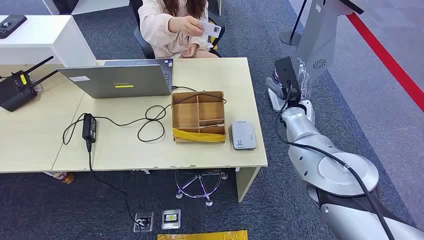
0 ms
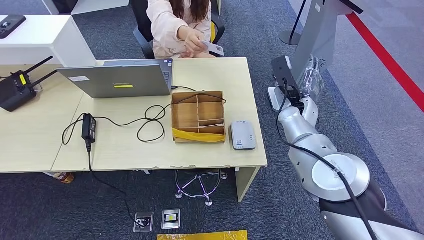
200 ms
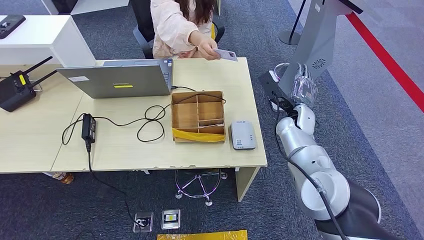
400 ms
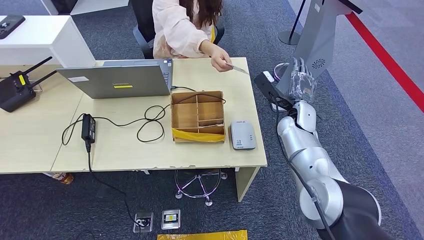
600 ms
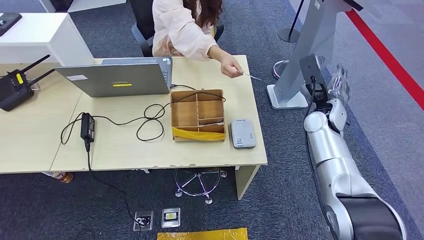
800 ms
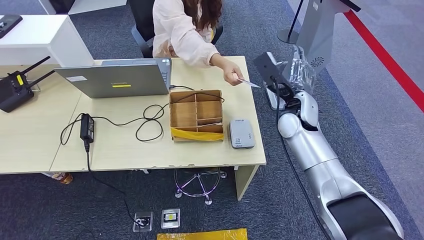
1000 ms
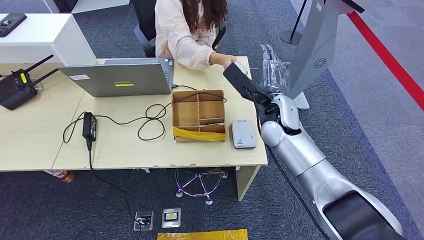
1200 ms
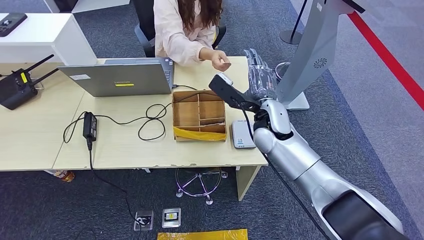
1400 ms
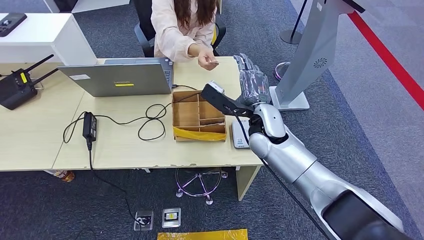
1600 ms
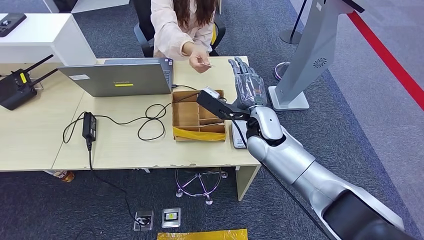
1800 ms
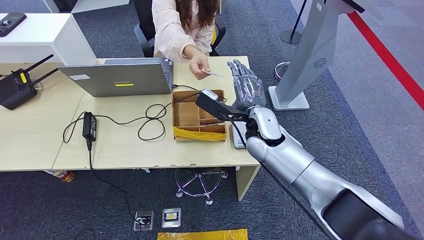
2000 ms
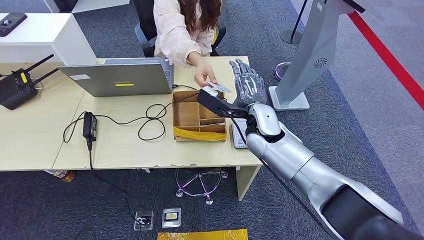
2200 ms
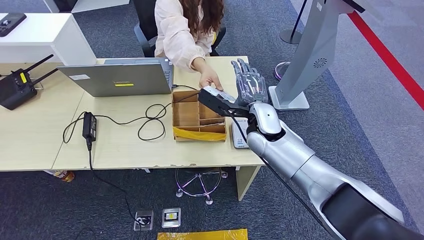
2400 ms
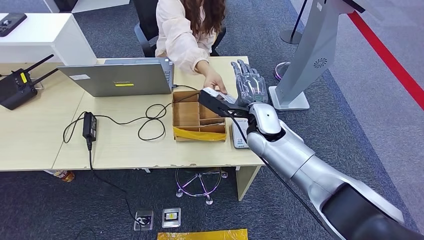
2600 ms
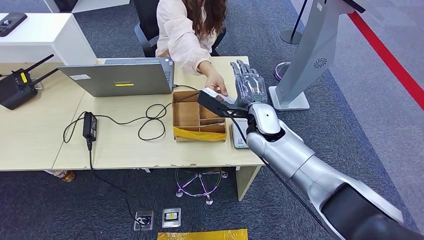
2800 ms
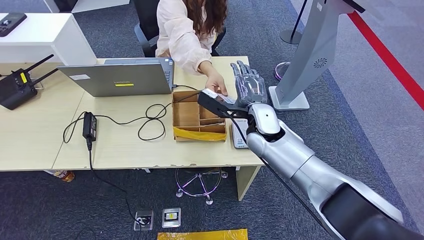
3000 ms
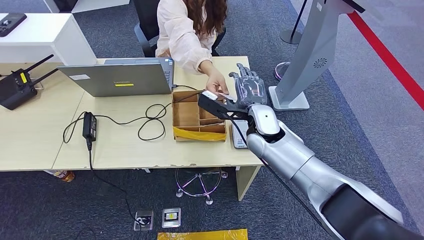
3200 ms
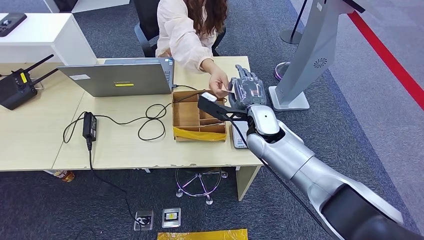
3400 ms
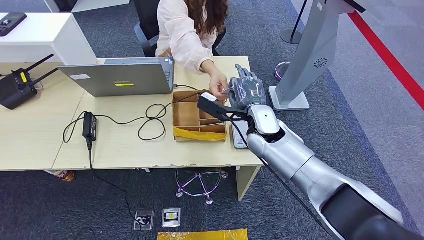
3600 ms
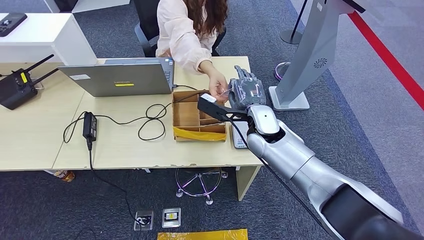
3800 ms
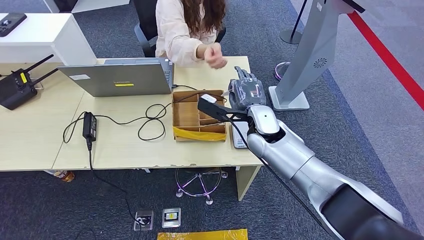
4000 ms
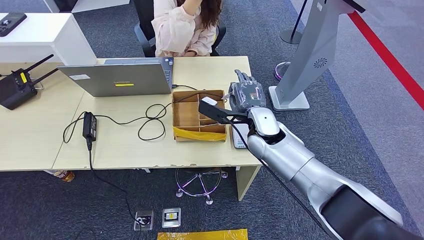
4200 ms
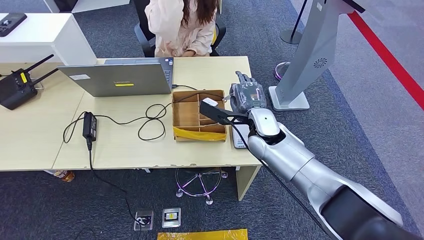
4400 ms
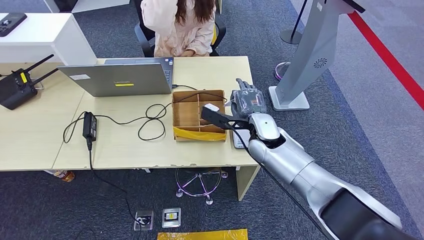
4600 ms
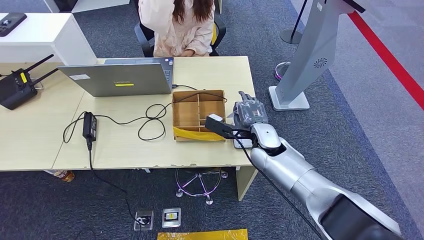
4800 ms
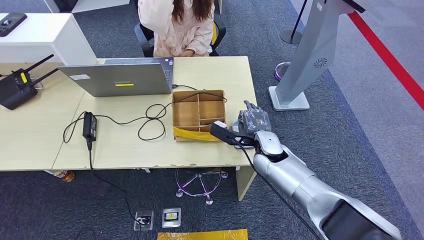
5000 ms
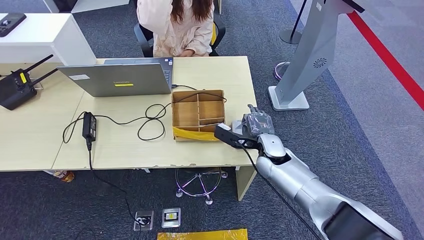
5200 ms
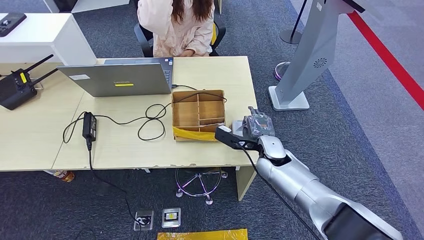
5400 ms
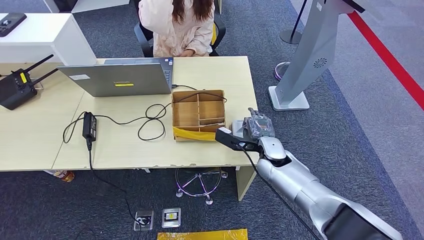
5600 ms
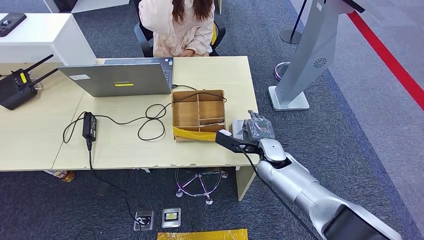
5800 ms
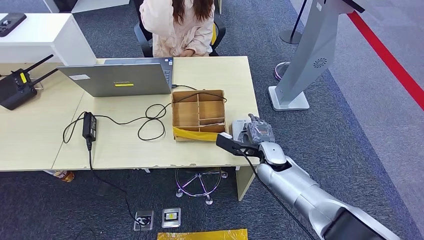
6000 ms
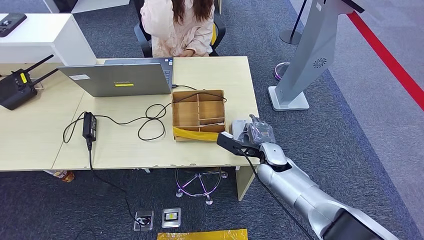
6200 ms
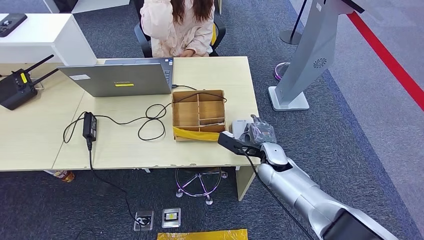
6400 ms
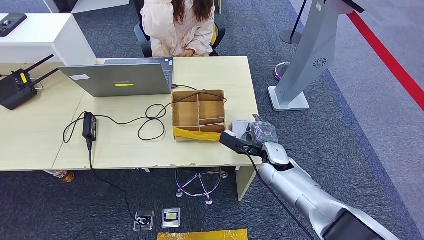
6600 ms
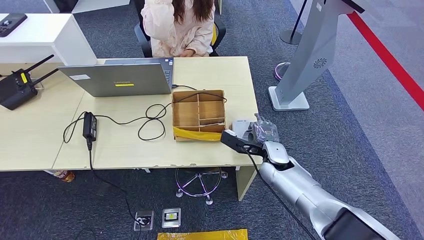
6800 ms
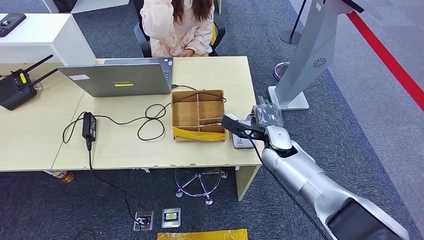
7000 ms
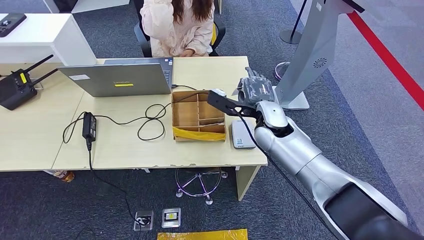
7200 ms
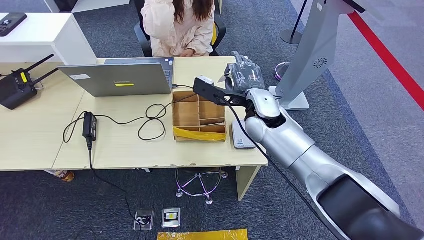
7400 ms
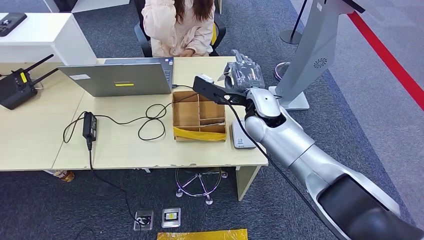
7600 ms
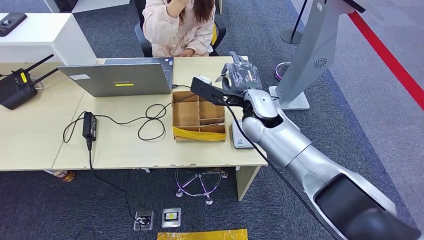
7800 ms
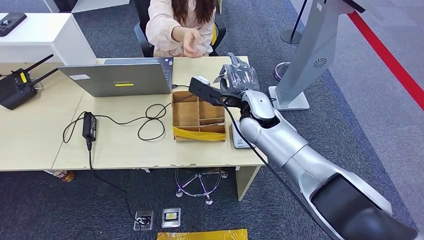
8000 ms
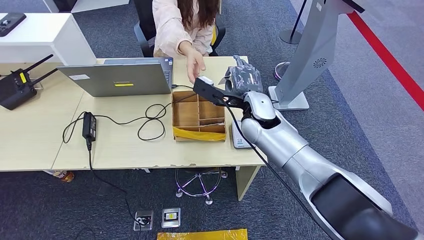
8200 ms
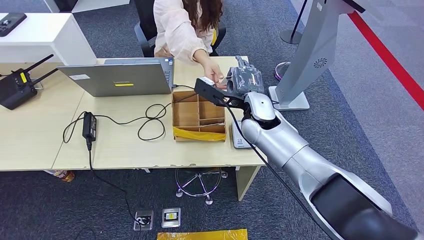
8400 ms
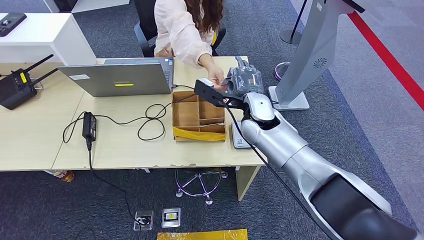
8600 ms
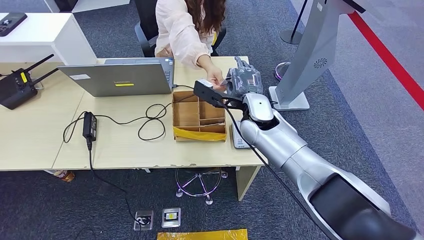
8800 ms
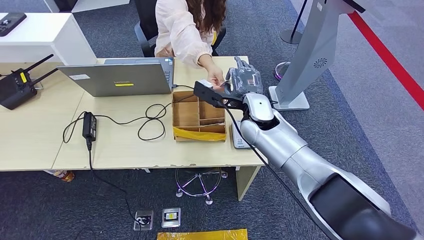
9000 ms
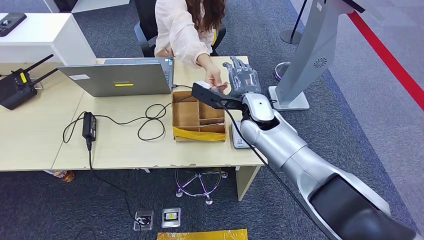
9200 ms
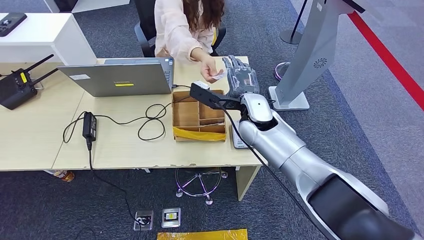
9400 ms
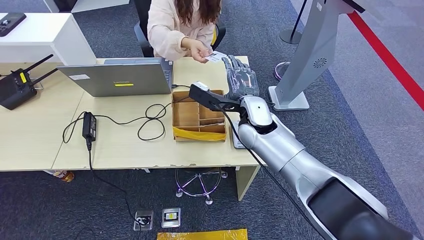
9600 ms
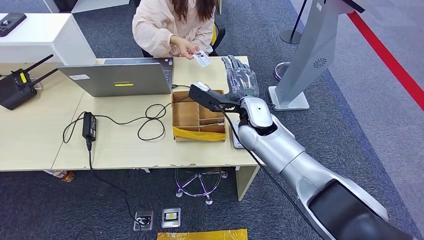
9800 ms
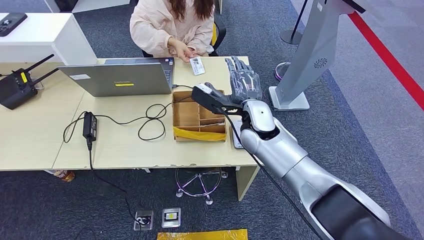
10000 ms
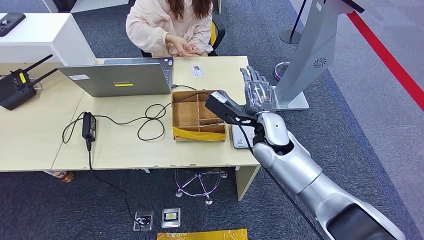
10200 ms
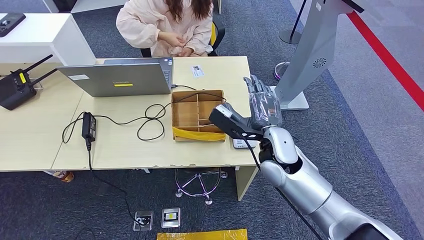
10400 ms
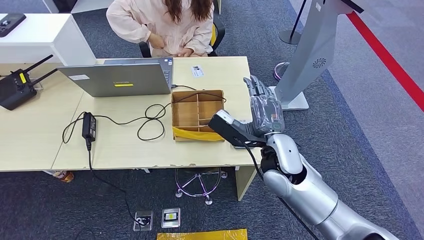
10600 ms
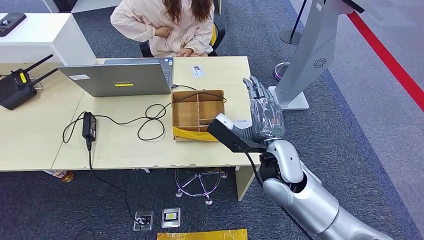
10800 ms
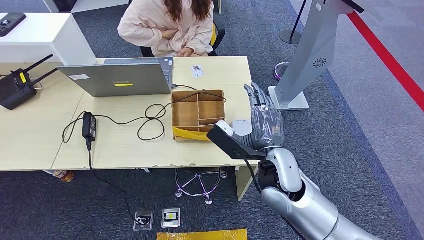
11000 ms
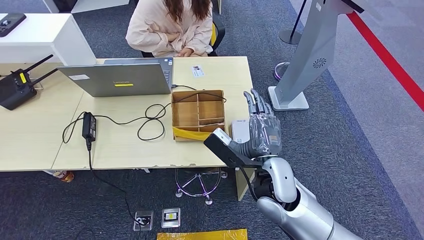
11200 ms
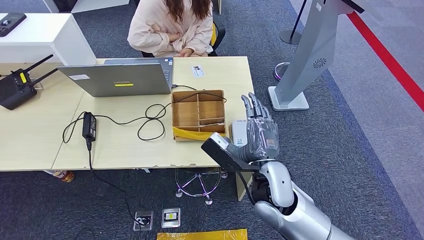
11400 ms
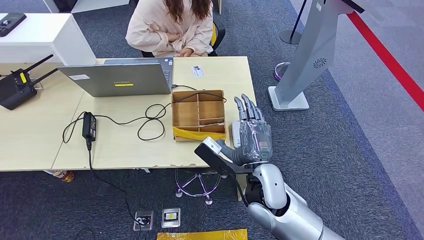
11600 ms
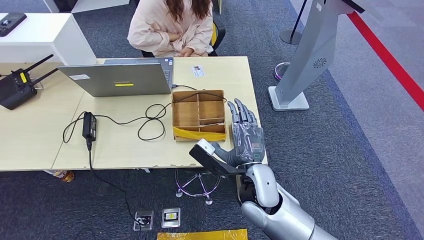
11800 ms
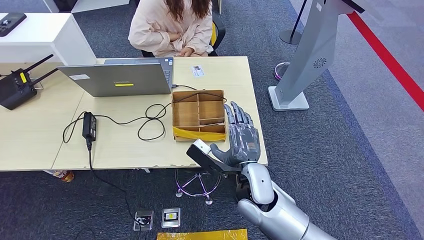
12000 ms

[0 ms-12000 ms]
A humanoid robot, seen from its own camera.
Step, 0 ms to 4200 ms: Take the ID card from the person's hand.
Step, 4400 ms to 6600 ms: Place the ID card on the card reader.
Step, 7200 ms to 9400 ms: Hand the ID card to the person.
1600 ms to 3000 ms: The hands make only small movements.
3000 ms to 4400 ms: There are only small adjustments of the hands.
4400 ms to 6000 ms: The right hand moves downward, approximately 10 cm.
6000 ms to 7600 ms: The right hand heads upward, covering roughly 15 cm.
7600 ms to 9000 ms: The hands move only a little.
9000 ms to 10400 ms: The right hand heads backward, covering some 10 cm.
10400 ms to 12000 ms: The right hand is displaced backward, to the left and downward by roughly 10 cm.

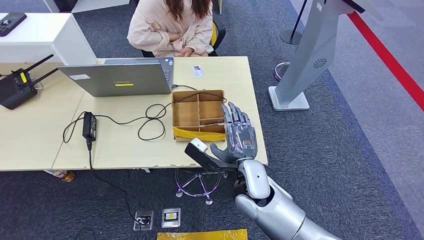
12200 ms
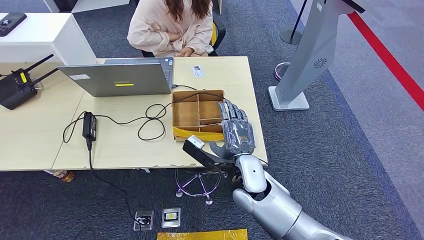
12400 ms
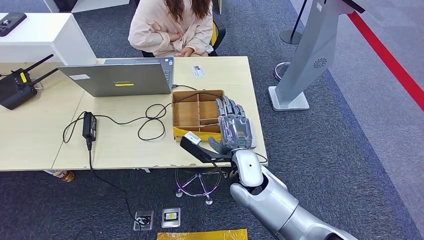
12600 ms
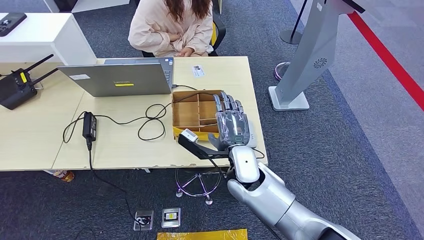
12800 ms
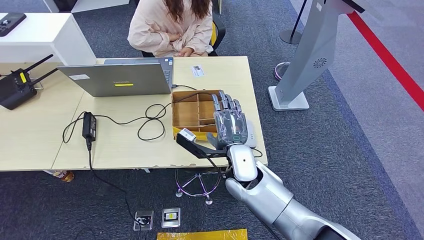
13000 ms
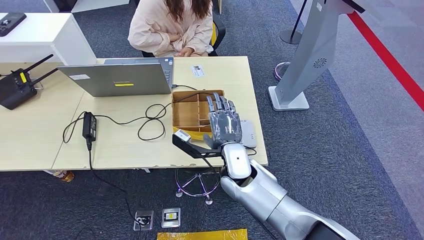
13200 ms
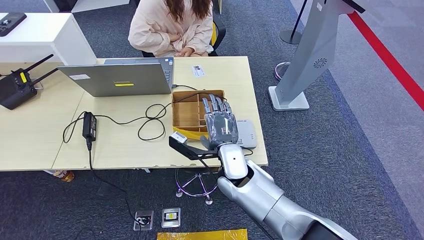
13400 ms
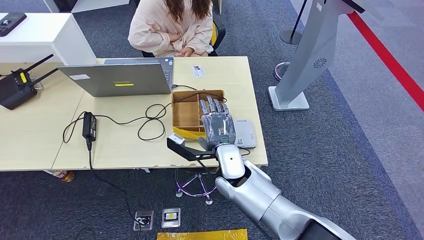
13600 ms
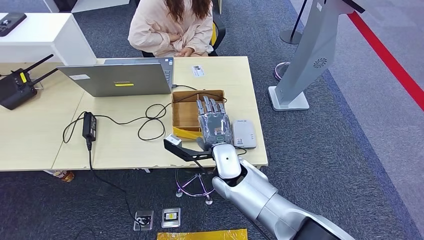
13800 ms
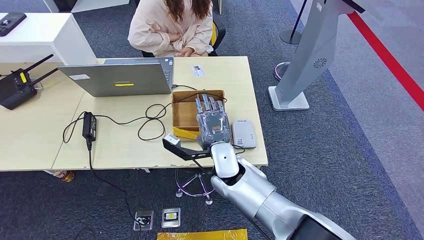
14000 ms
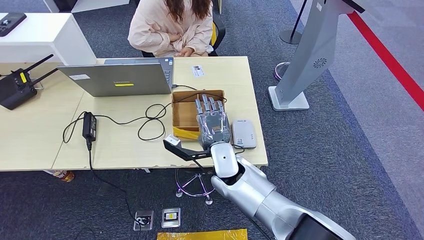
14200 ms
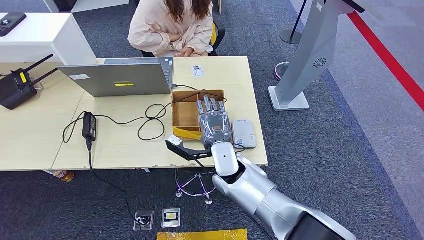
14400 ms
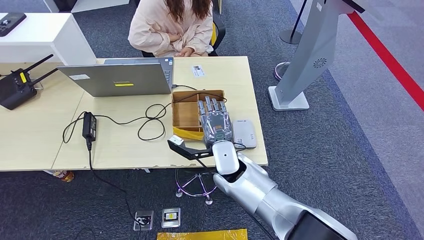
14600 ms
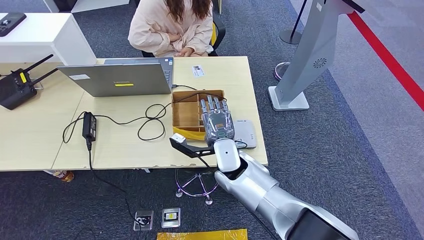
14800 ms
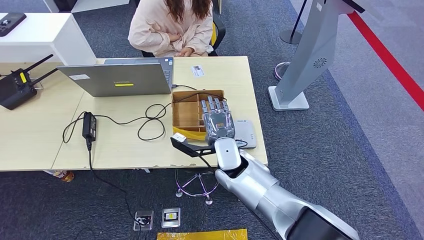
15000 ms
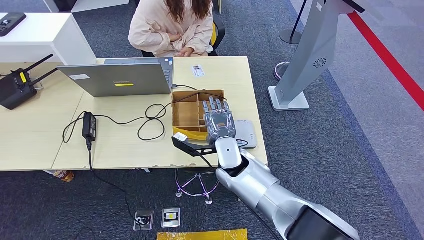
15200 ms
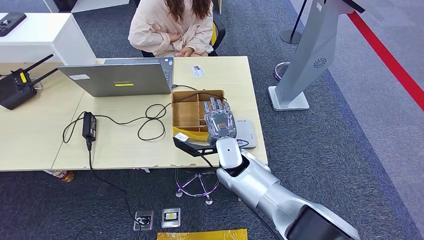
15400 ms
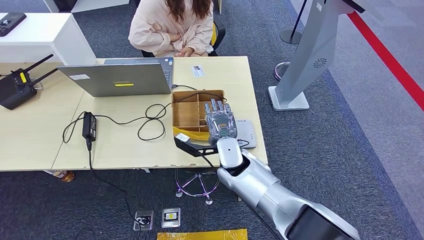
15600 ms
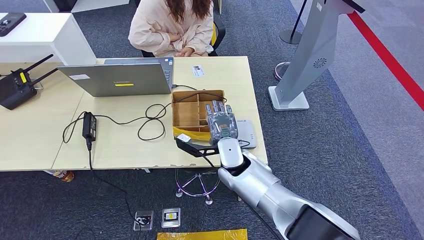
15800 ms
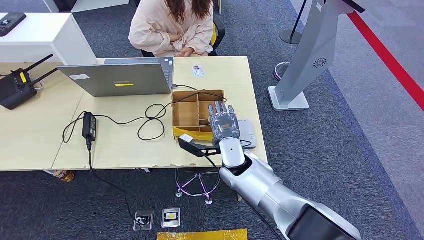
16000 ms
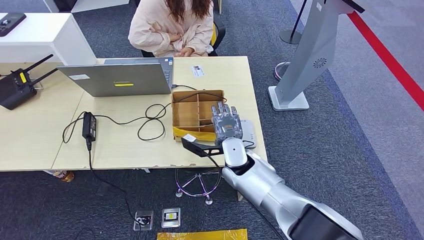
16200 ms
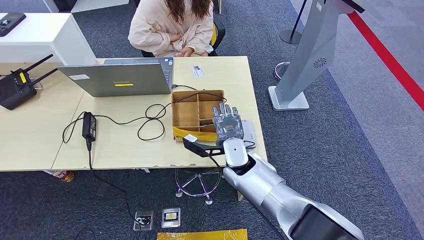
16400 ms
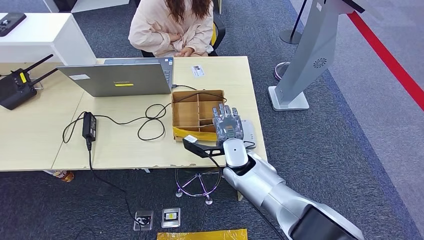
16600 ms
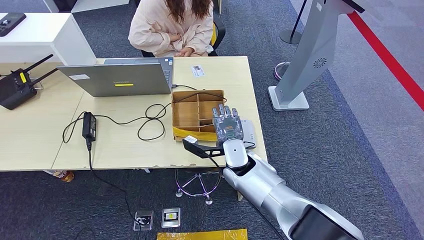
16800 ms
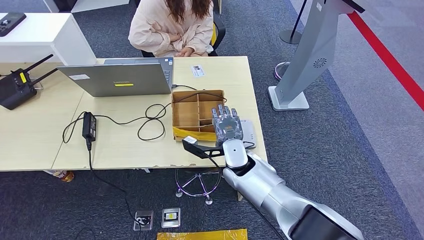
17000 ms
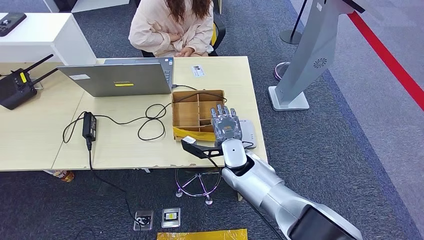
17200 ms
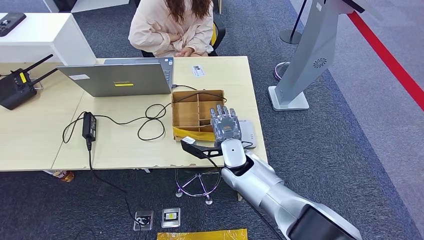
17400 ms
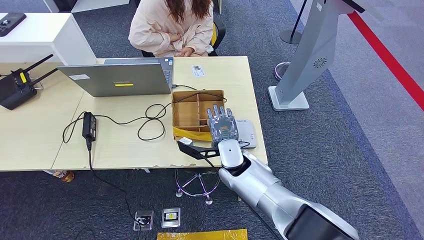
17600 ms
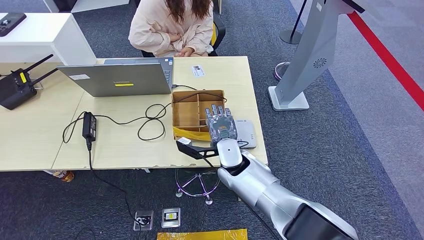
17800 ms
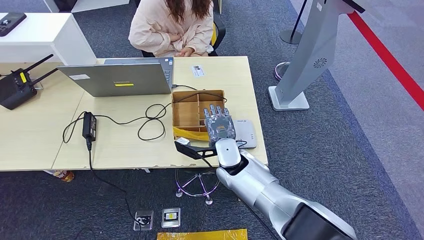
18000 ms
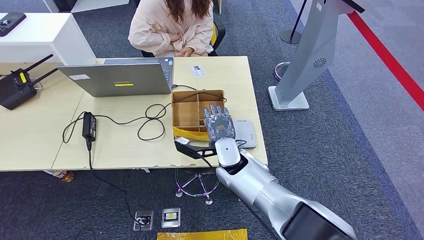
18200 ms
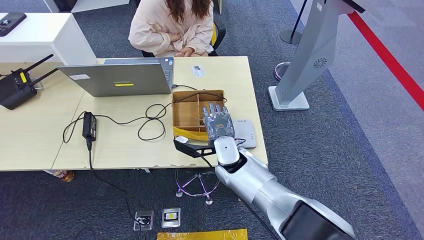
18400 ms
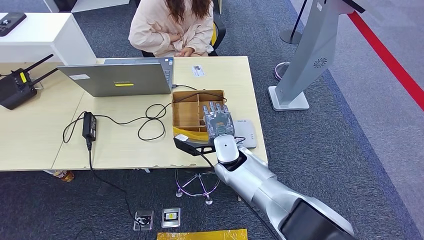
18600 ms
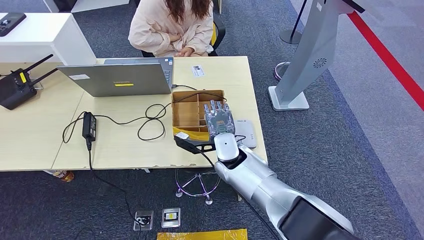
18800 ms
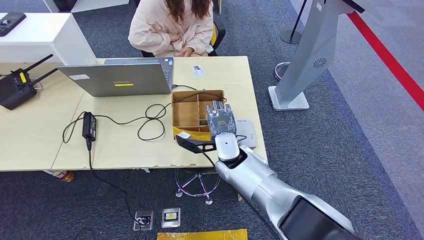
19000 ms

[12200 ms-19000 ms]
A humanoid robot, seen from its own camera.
12200 ms to 13600 ms: The right hand moves some 5 cm.
13600 ms to 16200 ms: The hands stay close to where they were, moving slightly.
16200 ms to 17600 ms: Neither hand changes place.
17600 ms to 19000 ms: There are only small adjustments of the hands.
